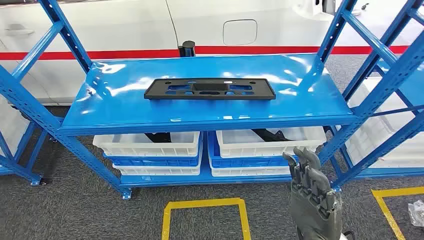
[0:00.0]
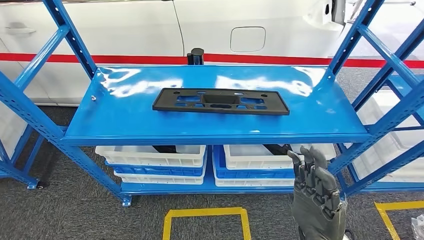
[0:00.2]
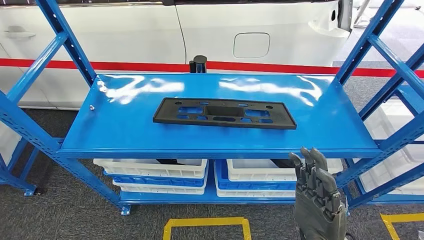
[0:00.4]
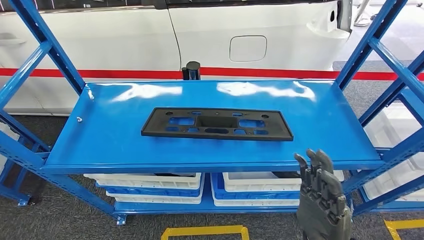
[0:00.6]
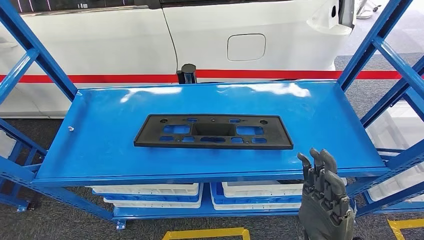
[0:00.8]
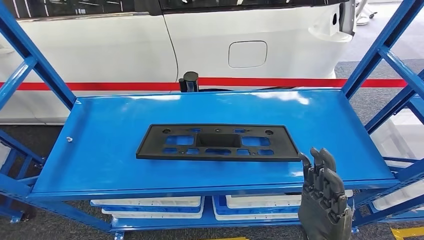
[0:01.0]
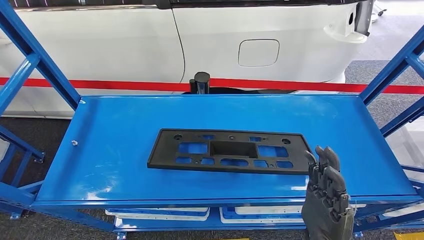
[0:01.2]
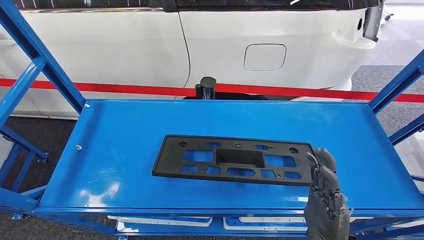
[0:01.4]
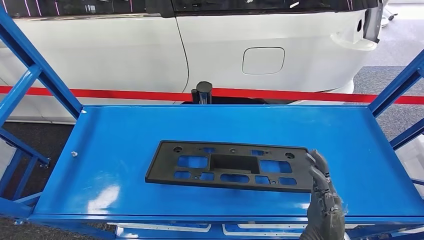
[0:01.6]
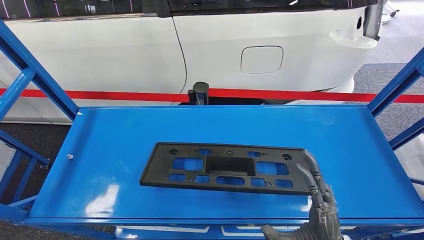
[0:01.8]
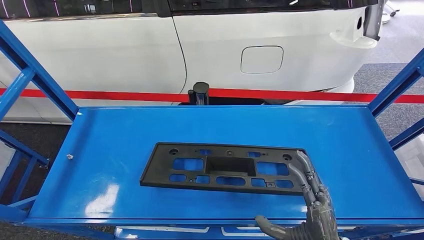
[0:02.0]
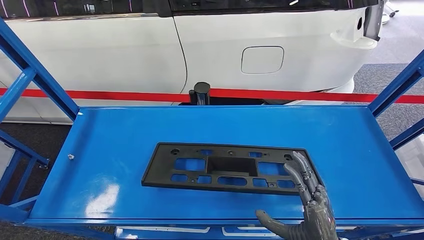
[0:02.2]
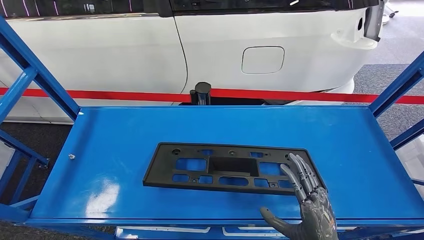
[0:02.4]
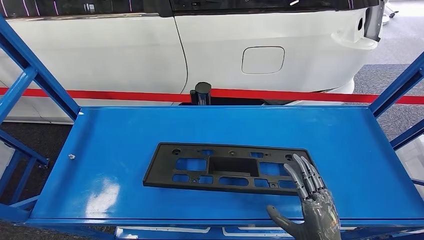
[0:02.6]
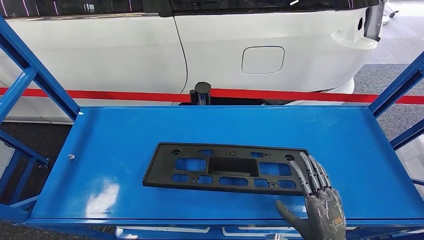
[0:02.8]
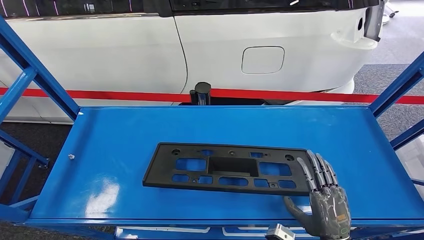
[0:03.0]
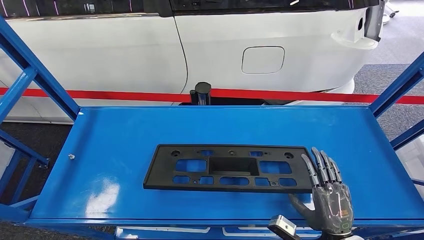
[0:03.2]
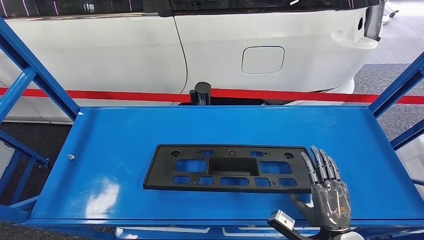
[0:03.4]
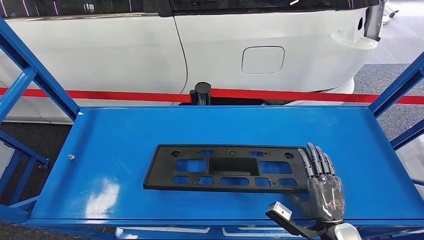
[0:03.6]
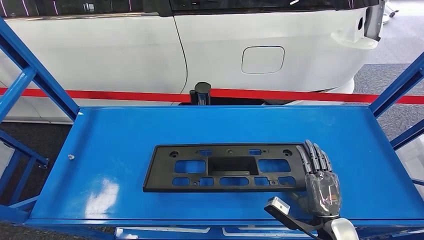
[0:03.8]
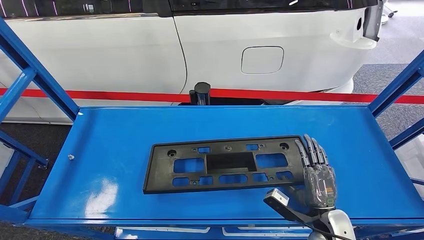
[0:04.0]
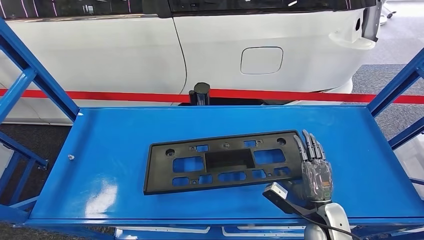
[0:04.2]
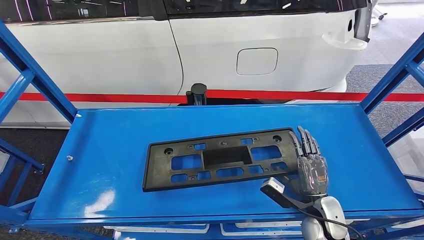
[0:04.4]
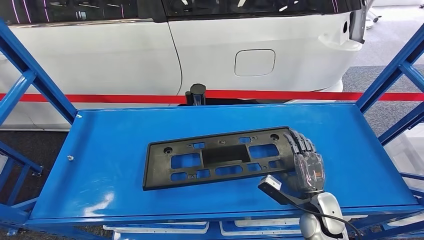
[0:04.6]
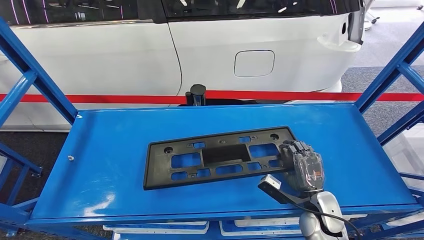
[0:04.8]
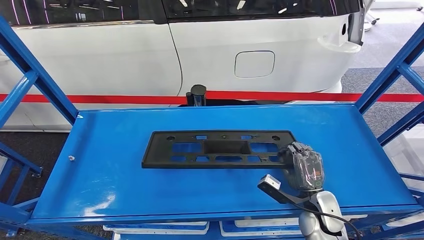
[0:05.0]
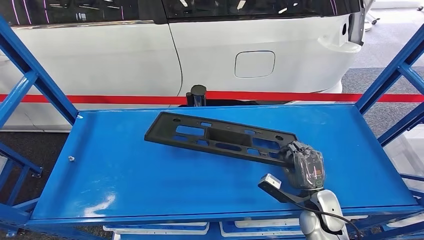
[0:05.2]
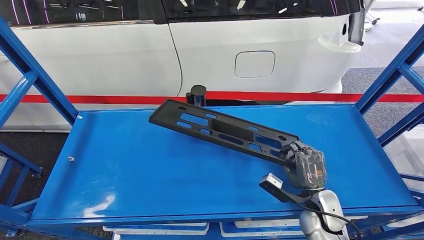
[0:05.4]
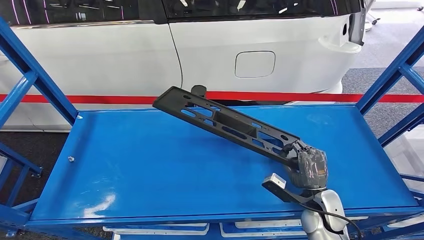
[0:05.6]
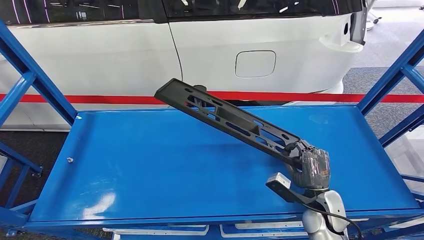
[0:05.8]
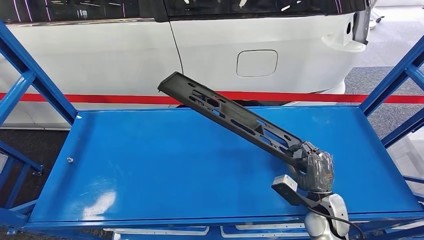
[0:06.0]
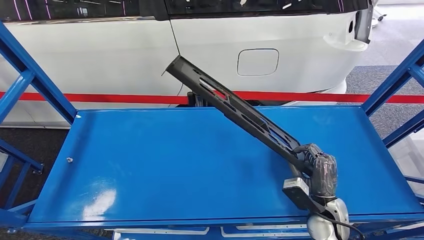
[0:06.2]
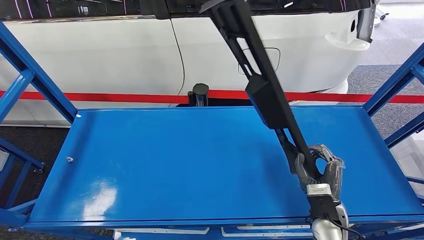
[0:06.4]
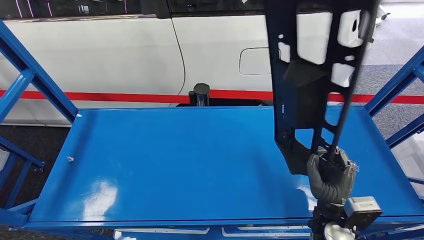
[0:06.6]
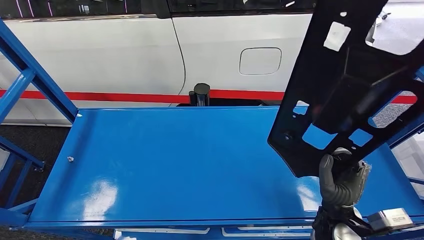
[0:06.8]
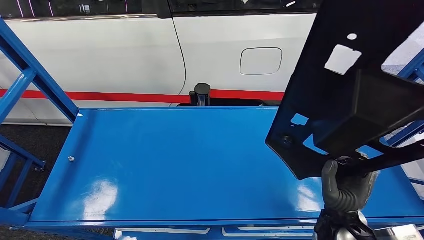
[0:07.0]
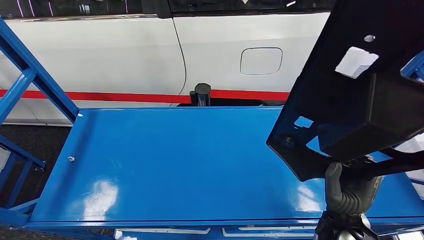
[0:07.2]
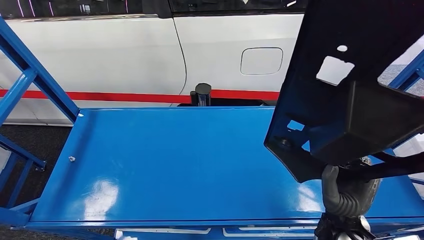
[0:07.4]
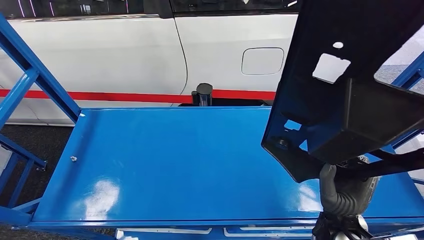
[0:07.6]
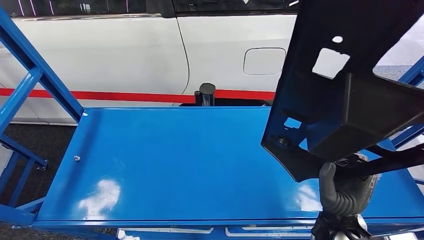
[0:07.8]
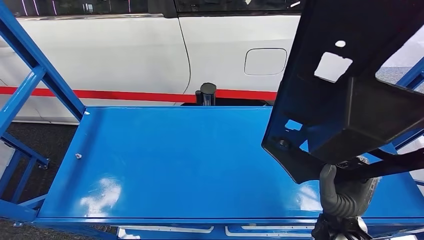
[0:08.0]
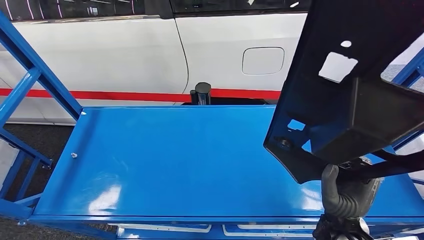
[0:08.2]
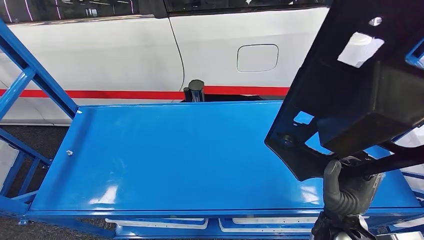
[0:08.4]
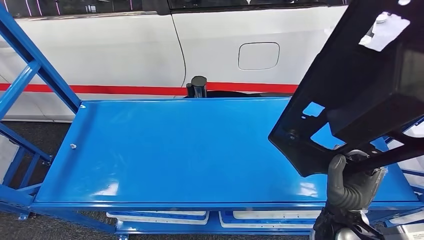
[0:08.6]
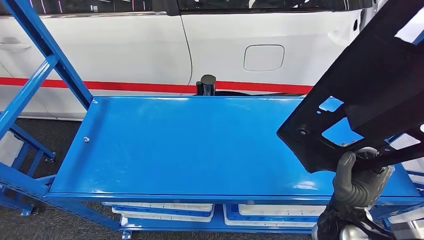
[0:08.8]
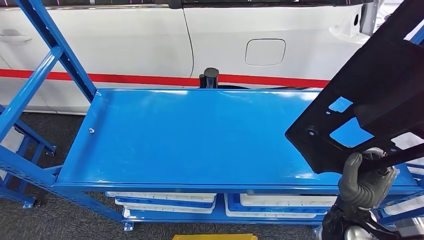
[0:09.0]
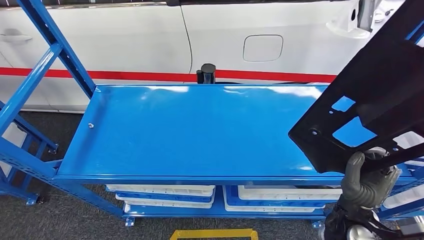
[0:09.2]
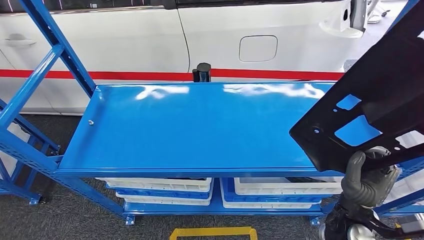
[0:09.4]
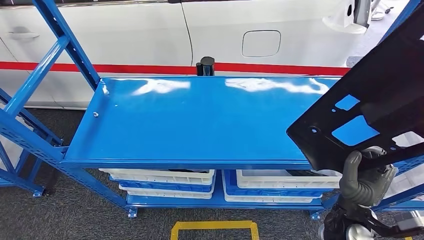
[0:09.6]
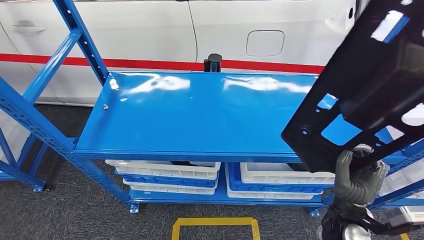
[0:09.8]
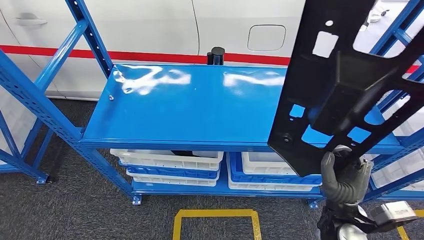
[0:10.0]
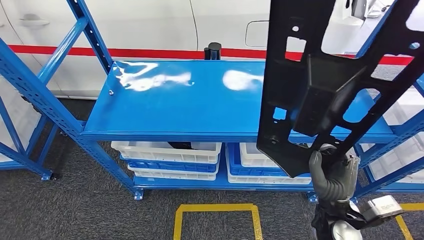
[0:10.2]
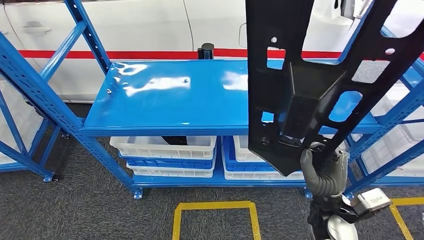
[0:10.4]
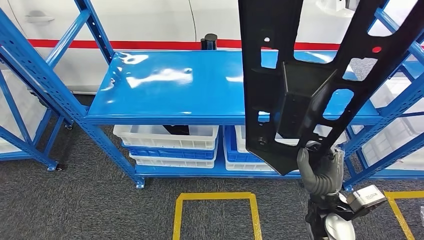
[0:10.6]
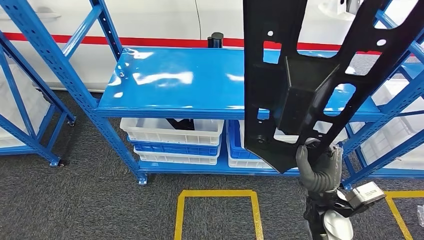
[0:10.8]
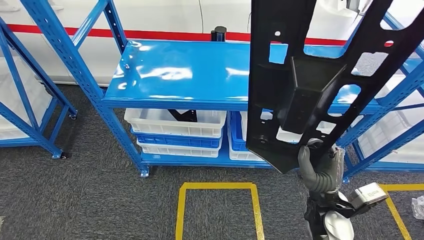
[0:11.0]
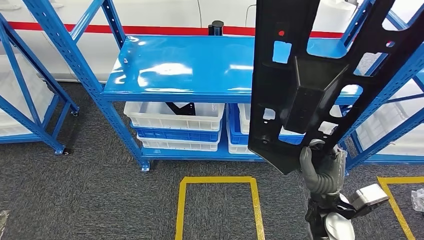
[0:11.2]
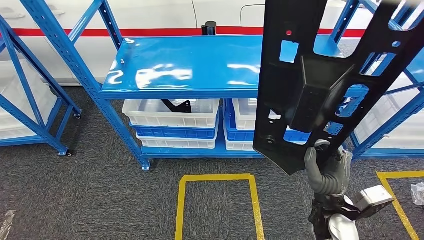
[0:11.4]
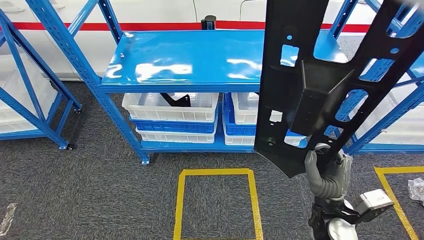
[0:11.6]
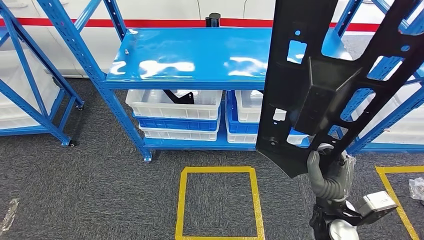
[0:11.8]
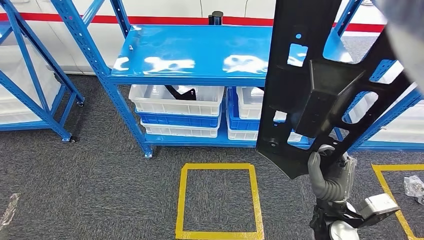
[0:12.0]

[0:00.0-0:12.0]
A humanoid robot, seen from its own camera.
0:01.6 to 0:03.0: The right hand moves to the right, some 5 cm.

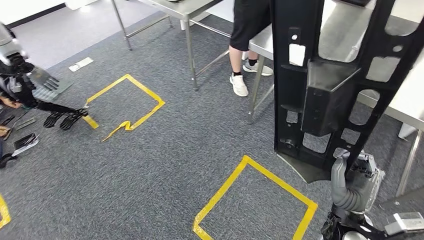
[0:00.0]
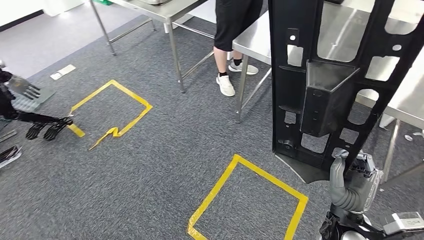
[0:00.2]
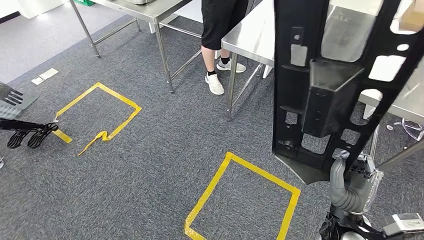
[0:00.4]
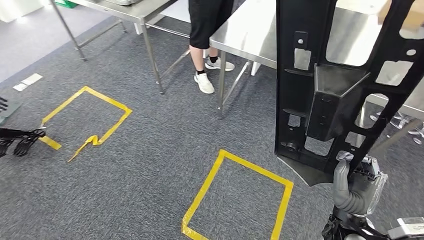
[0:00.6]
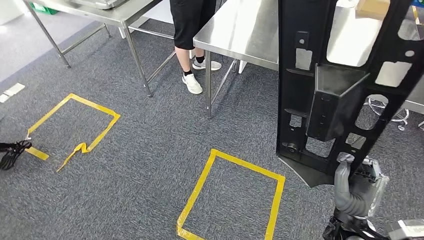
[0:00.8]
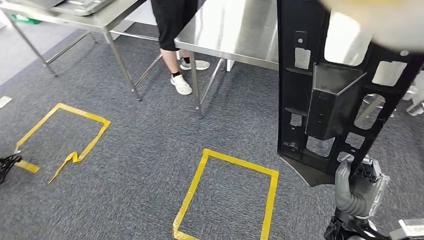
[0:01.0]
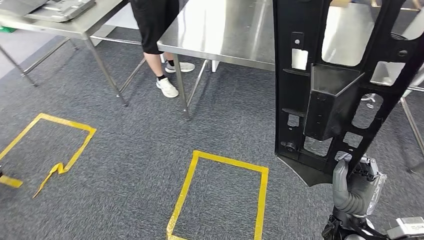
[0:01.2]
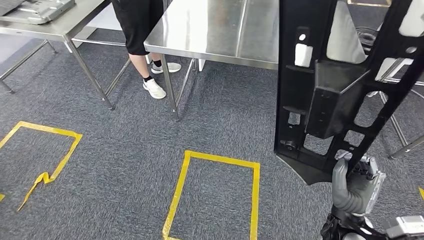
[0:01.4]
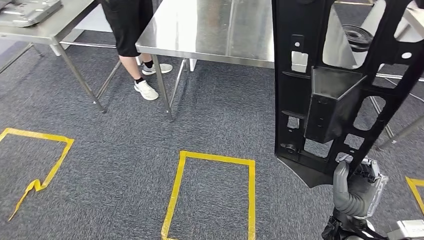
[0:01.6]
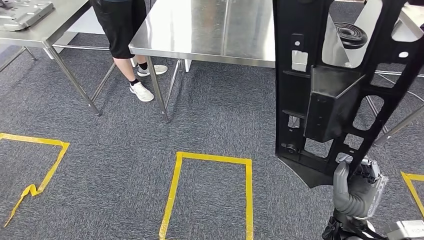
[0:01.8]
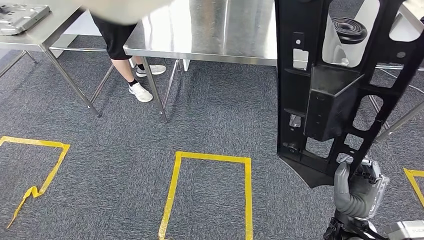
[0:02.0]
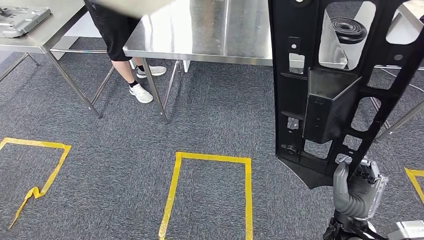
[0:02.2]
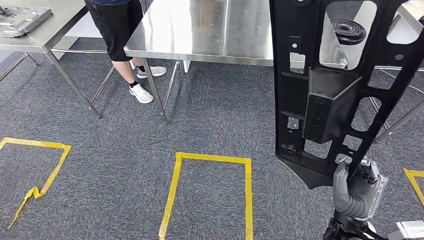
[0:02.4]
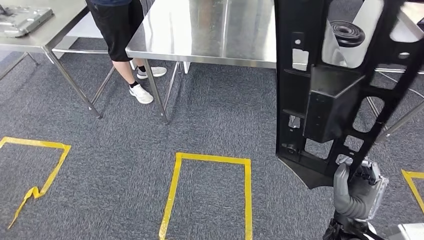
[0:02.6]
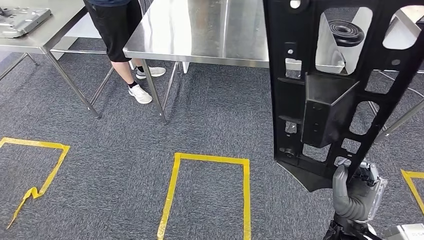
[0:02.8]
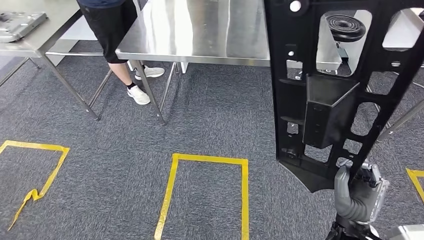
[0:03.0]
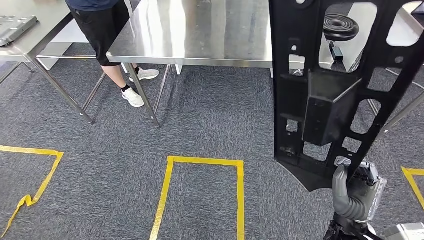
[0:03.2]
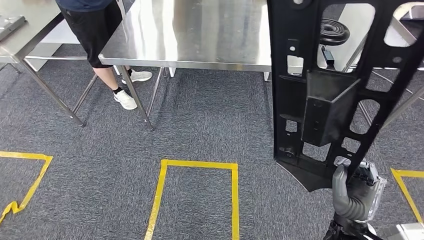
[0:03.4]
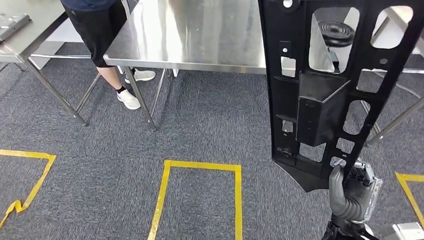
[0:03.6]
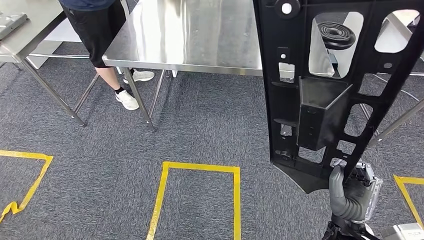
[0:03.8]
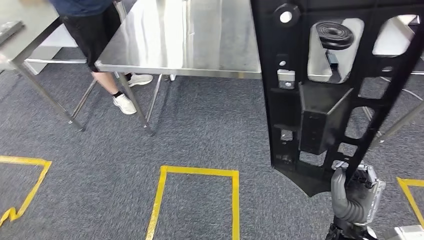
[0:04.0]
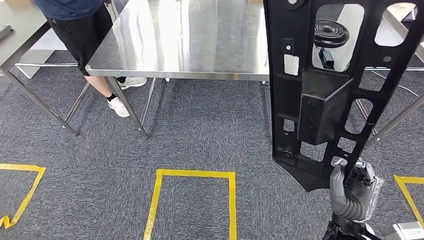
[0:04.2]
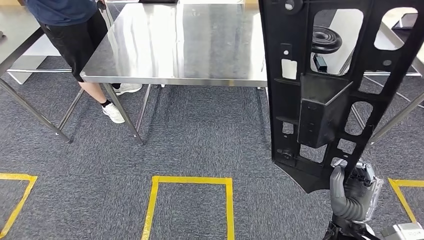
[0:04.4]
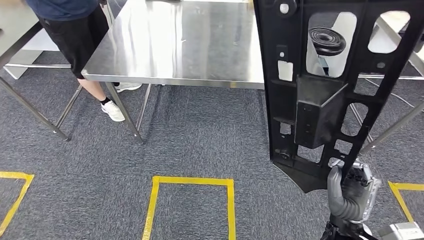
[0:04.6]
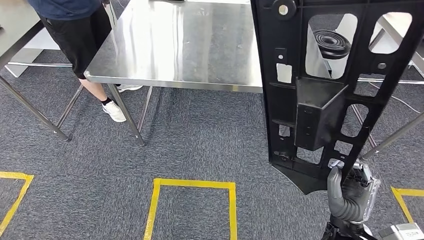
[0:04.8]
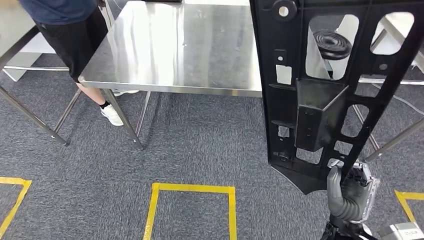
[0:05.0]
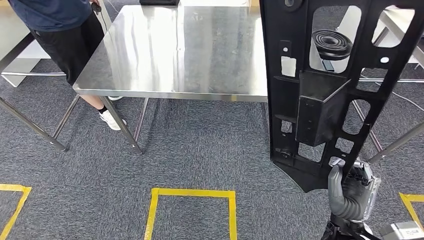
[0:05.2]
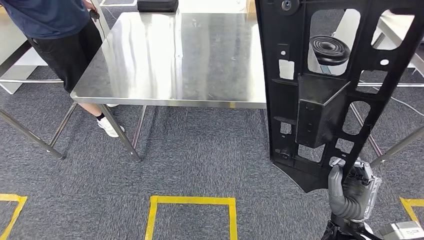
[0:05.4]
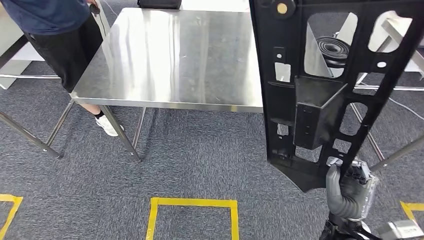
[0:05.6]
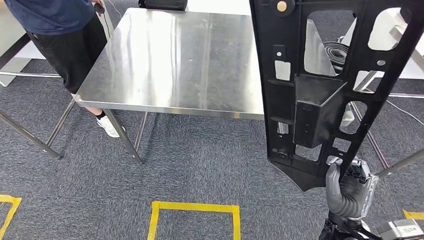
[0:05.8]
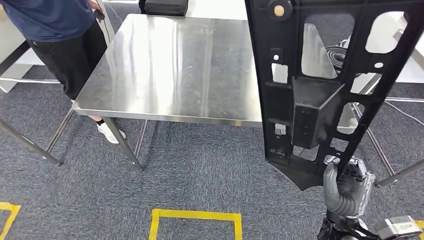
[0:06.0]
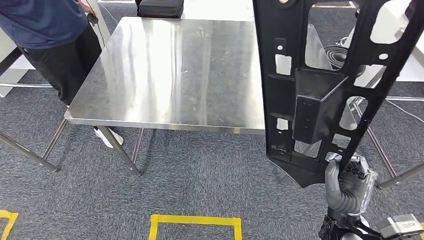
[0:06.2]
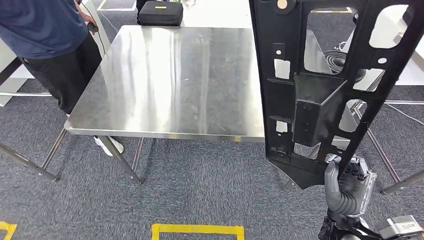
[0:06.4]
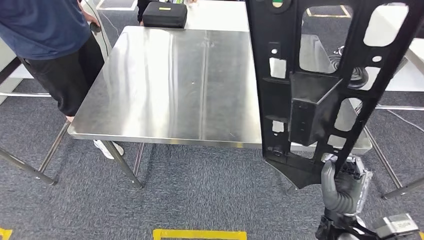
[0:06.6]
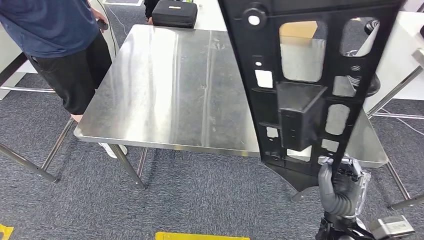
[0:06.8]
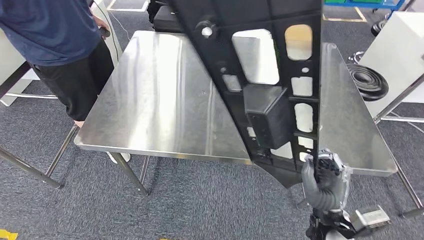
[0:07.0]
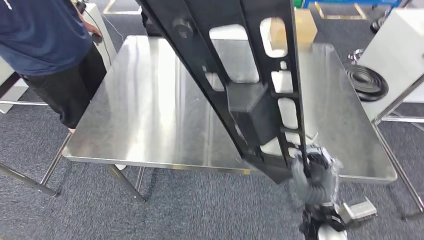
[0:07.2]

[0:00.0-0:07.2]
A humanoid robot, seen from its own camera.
Step, 0:00.0 to 0:05.6: Move the large material to the workbench.
